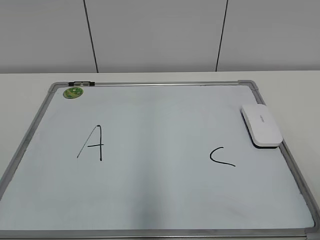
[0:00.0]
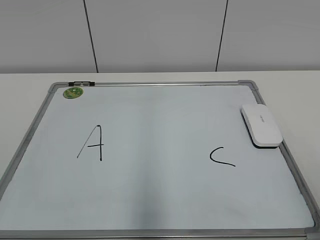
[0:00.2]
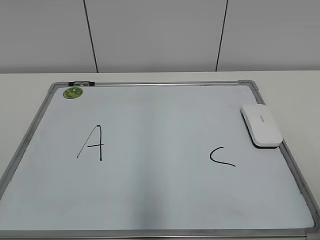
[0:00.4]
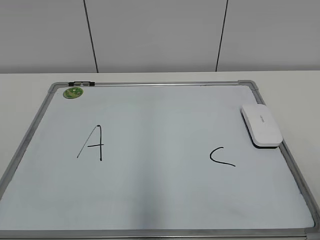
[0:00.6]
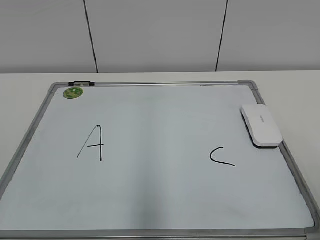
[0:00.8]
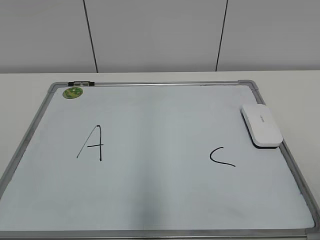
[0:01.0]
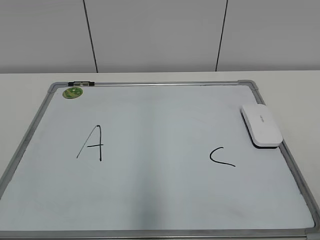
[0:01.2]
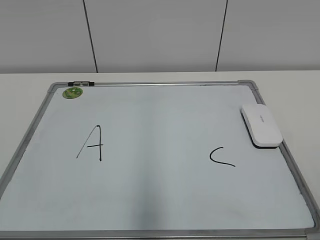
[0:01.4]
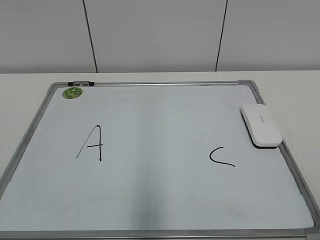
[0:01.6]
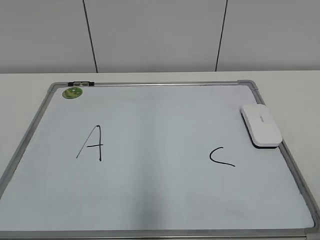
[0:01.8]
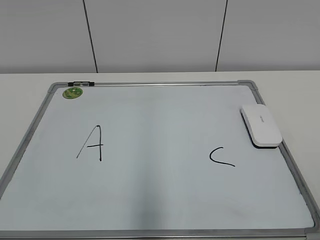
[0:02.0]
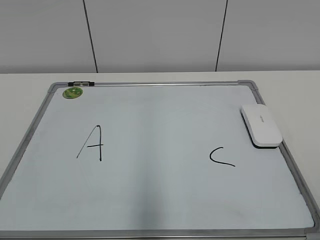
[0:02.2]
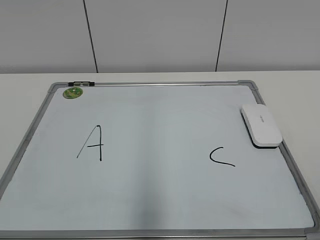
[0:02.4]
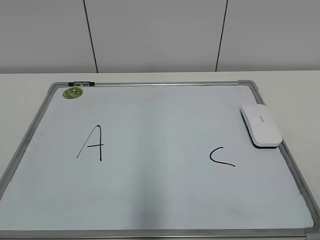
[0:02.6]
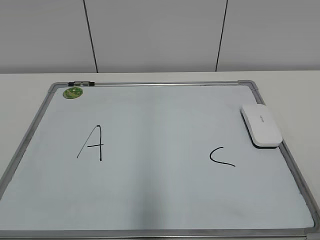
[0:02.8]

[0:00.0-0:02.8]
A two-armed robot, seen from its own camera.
Task of the whole recording: pick up the eraser on the blackboard and erase the letter "B".
0:01.4 to 0:02.8: Neither gripper changes place.

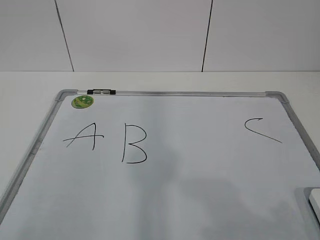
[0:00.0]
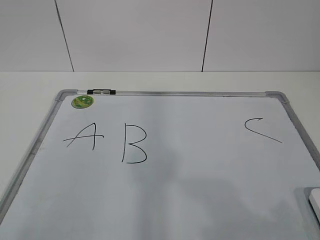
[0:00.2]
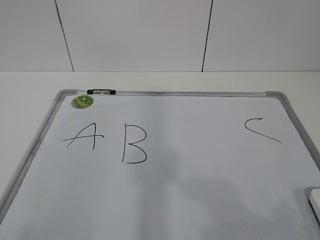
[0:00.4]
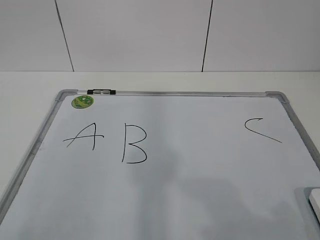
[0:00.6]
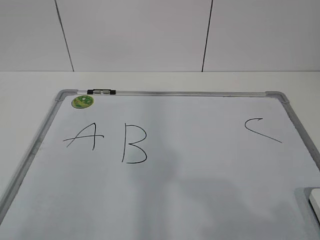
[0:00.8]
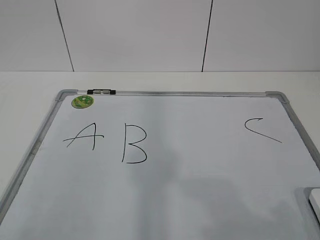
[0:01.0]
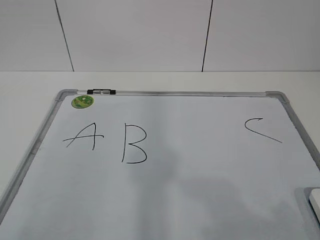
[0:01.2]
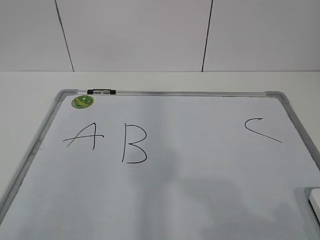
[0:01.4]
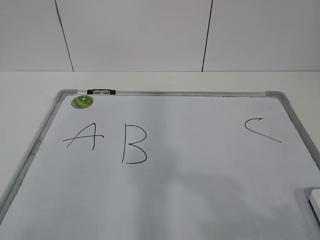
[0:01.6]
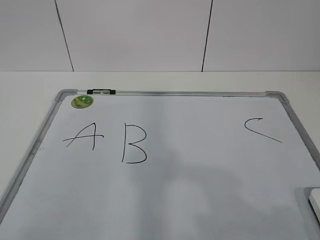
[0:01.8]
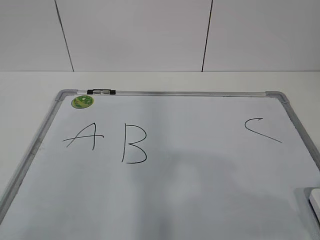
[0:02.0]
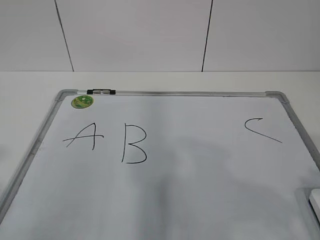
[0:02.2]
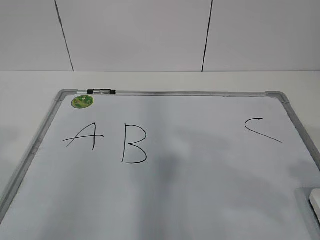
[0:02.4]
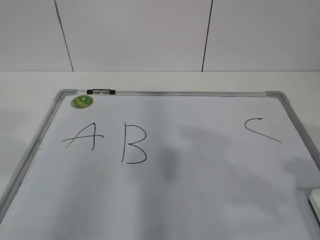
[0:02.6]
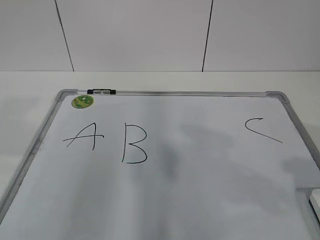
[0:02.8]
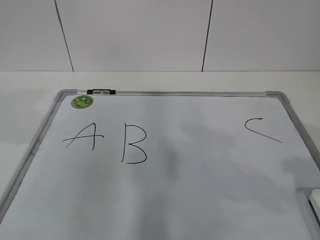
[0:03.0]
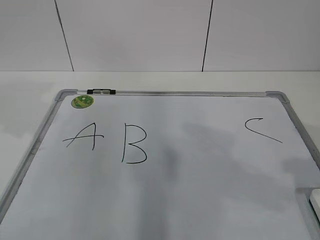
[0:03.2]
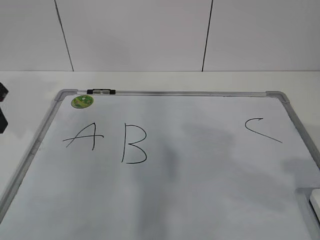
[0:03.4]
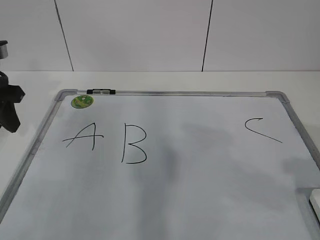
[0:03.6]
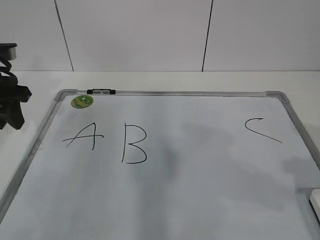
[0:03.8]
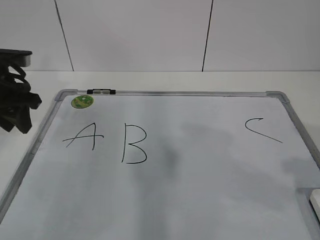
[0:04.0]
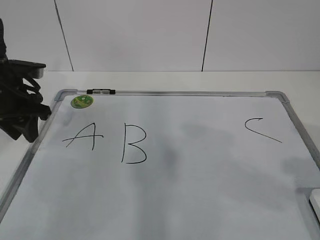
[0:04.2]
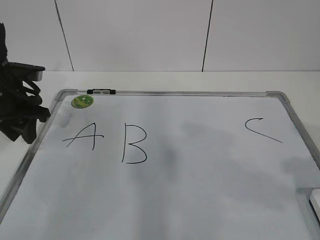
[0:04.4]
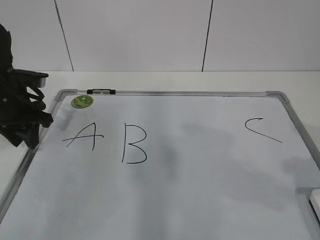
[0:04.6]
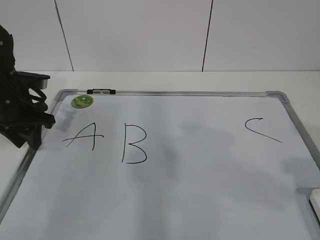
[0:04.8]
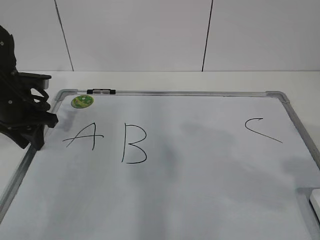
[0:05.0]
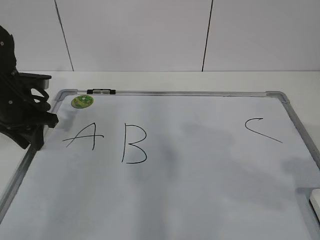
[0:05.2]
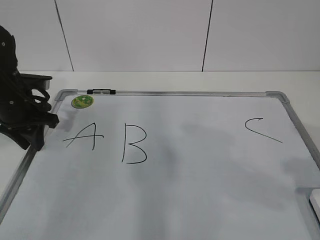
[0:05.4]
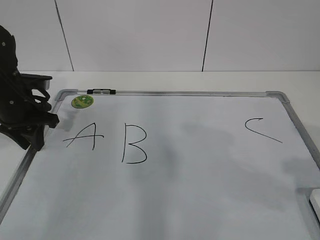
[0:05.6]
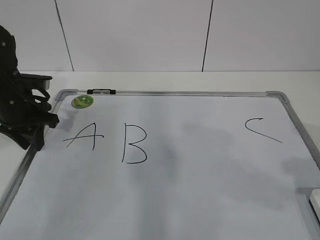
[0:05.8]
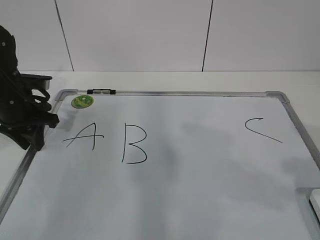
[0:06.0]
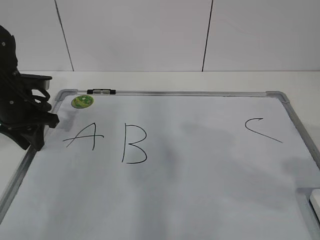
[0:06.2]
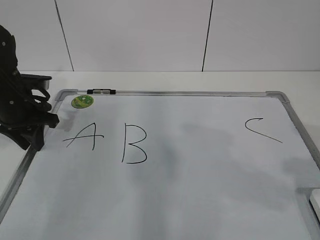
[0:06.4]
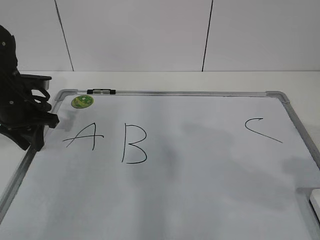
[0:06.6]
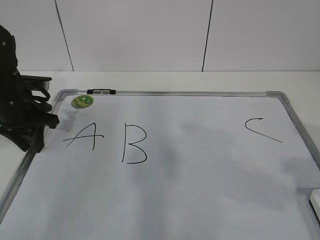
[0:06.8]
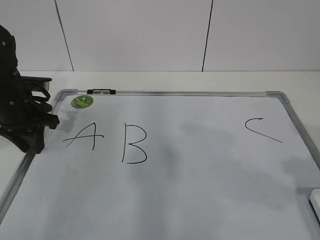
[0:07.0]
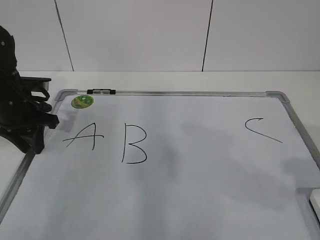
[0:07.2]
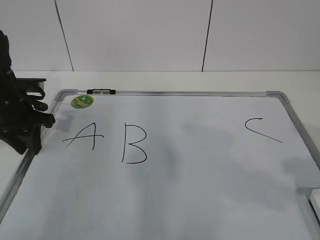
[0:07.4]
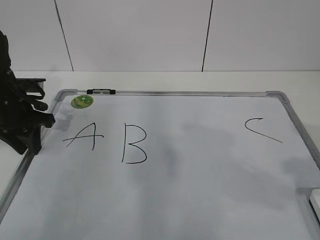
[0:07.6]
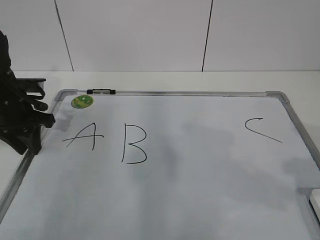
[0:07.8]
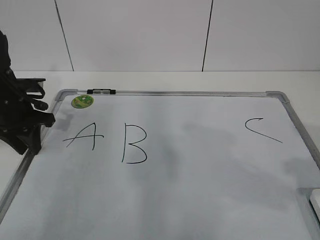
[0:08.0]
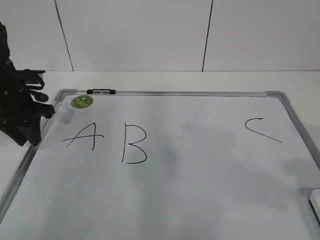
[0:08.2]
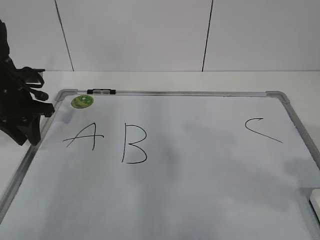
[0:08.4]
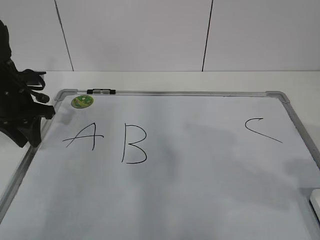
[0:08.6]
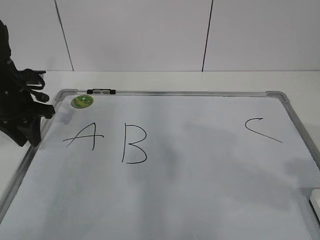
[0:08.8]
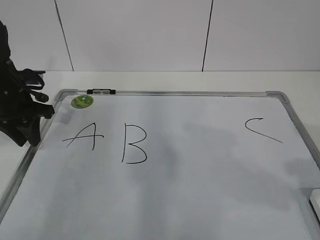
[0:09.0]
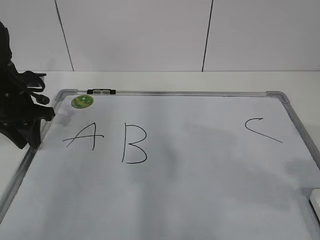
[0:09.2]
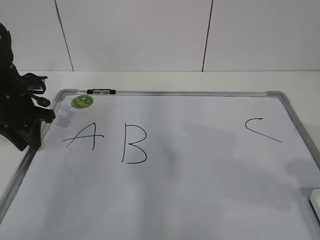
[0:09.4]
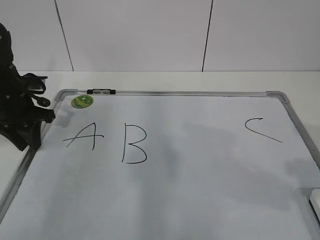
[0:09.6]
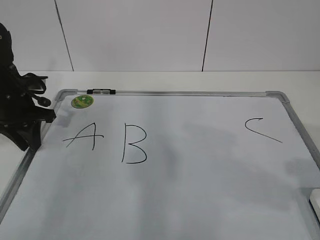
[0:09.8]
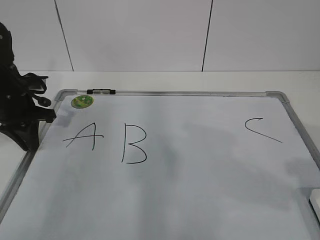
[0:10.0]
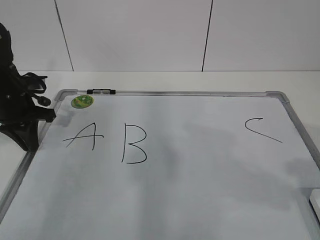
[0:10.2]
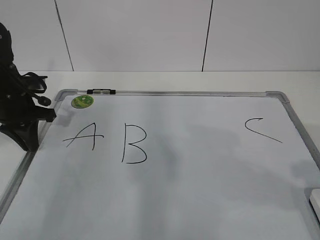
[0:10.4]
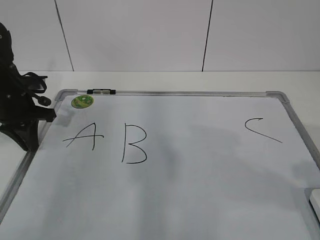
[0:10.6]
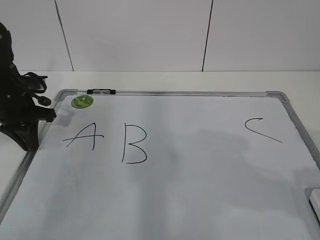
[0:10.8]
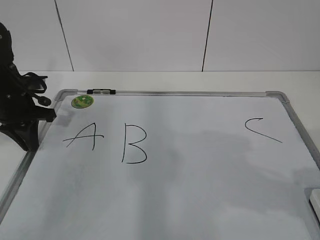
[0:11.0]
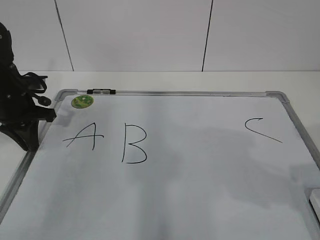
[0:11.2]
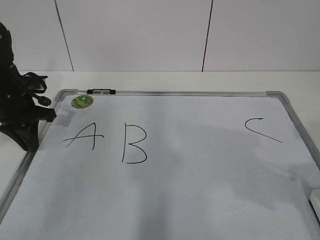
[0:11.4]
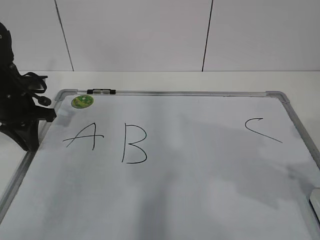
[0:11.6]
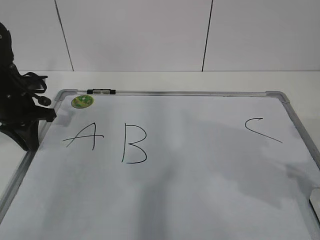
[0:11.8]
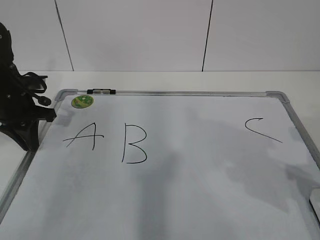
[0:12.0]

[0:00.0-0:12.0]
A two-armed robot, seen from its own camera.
Task of the whole recording: pick up the eraser on the blackboard and erase the letter "B".
Step, 0:00.0 to 0:08.2: Hold the drawing board steady with your left hand.
Step, 0:08.6 to 0:11.6: Grab the eraser with your right hand.
0:01.6 to 0:03.0: The left gripper goes some 20 cm forward.
0:03.0 to 0:04.4: The left gripper shifts roughly 20 cm forward and downward.
0:04.4 to 0:09.0: The grippers stay close to where they were, moving slightly.
0:09.0 to 0:10.4: The left gripper closes.

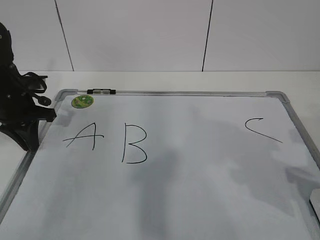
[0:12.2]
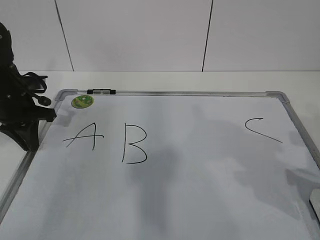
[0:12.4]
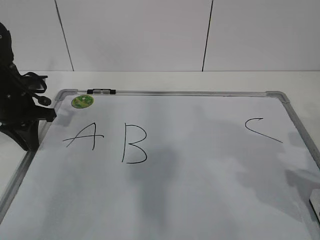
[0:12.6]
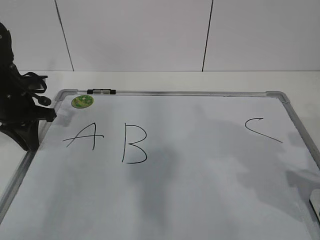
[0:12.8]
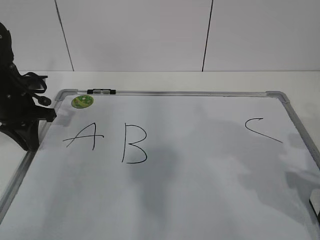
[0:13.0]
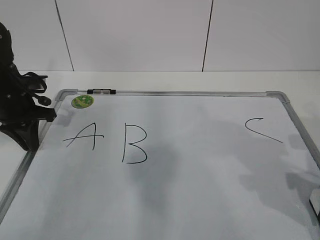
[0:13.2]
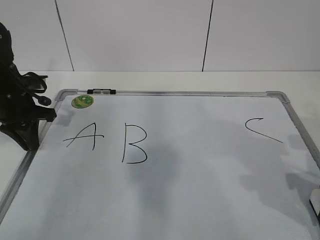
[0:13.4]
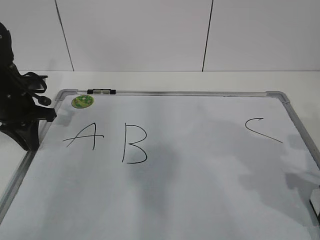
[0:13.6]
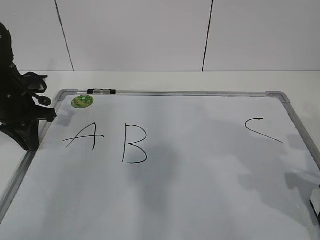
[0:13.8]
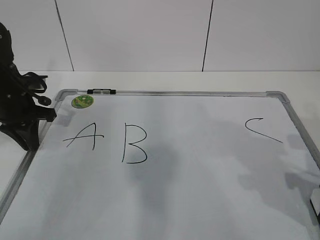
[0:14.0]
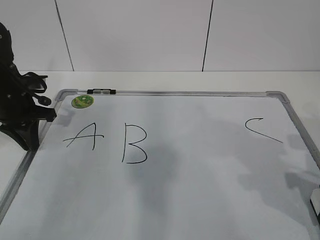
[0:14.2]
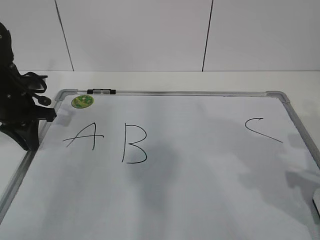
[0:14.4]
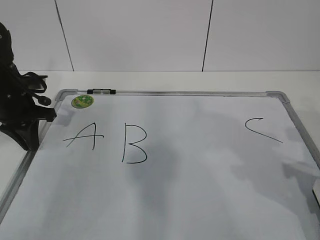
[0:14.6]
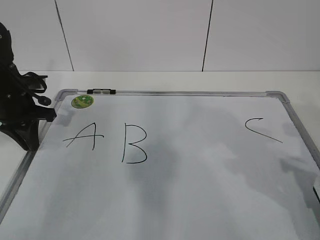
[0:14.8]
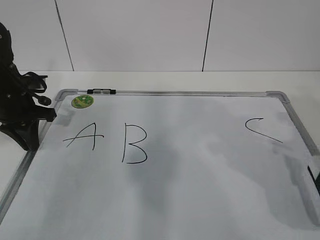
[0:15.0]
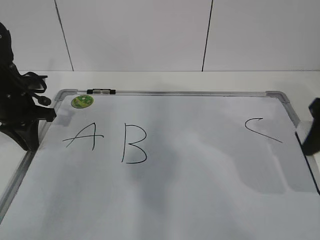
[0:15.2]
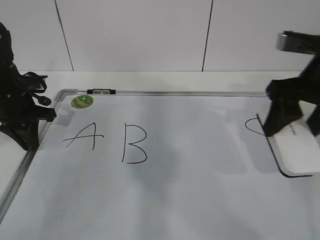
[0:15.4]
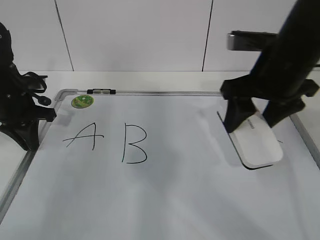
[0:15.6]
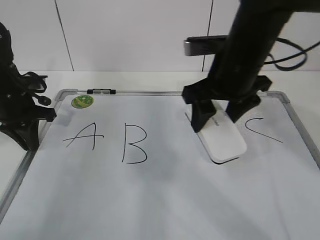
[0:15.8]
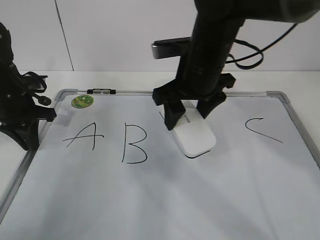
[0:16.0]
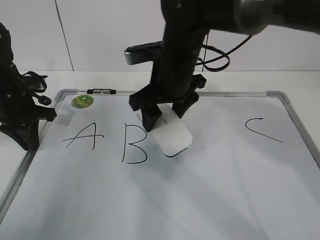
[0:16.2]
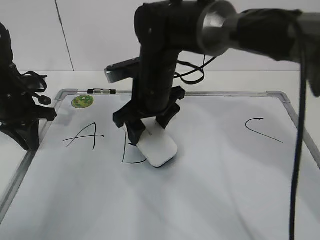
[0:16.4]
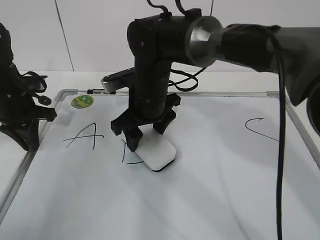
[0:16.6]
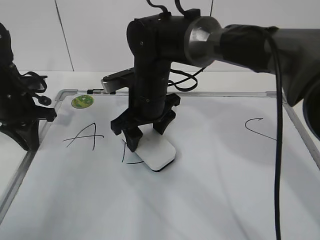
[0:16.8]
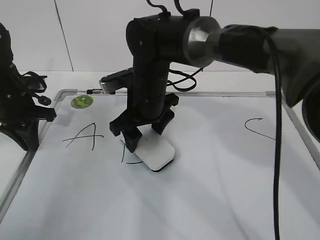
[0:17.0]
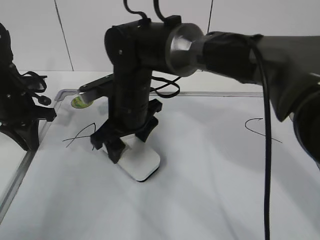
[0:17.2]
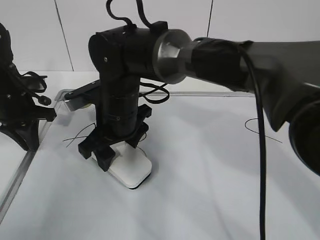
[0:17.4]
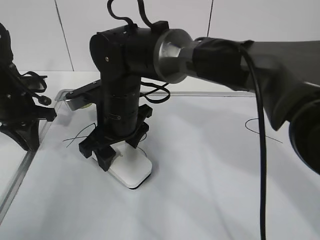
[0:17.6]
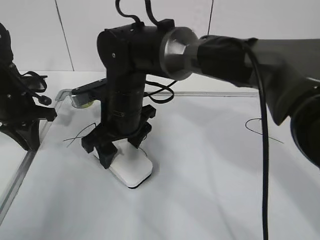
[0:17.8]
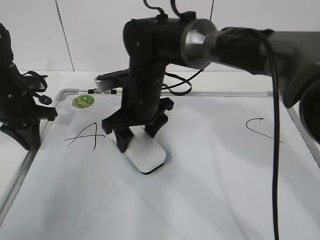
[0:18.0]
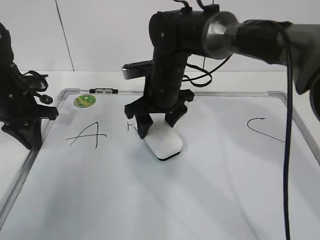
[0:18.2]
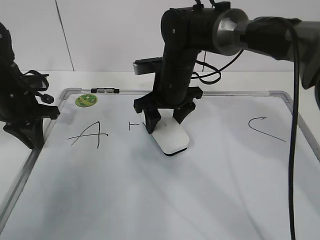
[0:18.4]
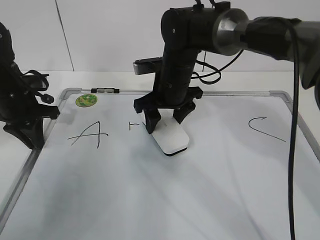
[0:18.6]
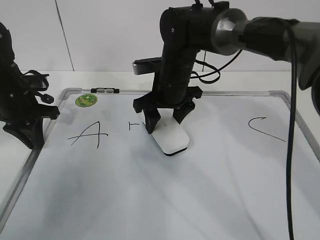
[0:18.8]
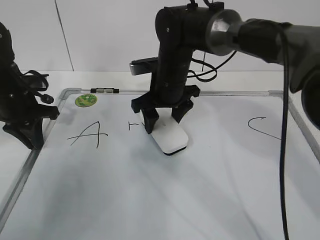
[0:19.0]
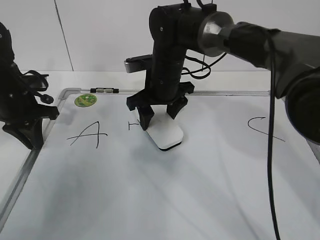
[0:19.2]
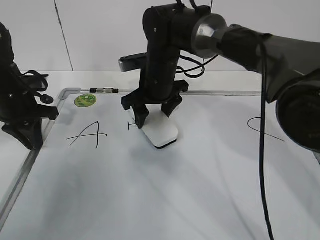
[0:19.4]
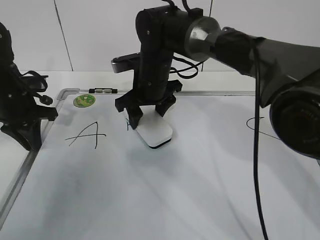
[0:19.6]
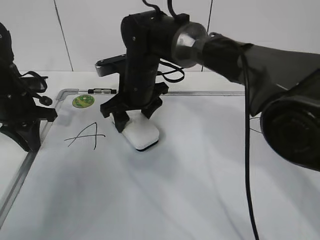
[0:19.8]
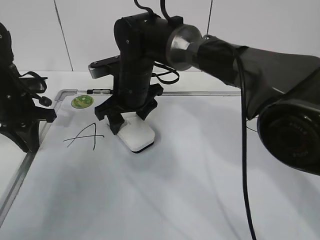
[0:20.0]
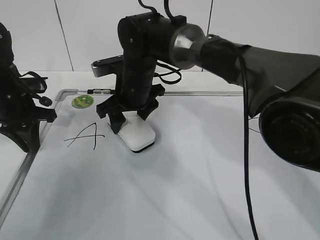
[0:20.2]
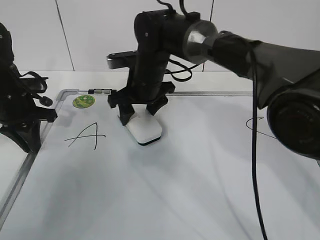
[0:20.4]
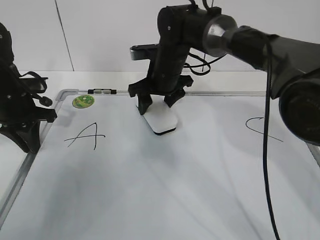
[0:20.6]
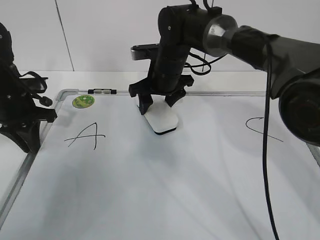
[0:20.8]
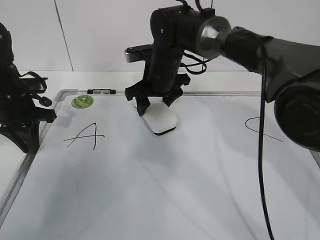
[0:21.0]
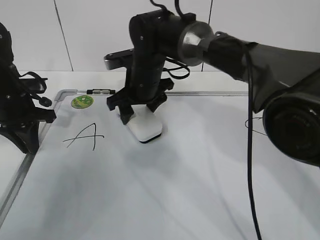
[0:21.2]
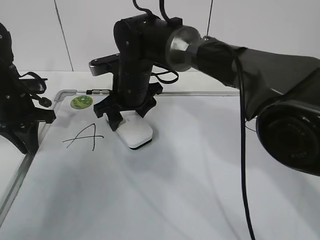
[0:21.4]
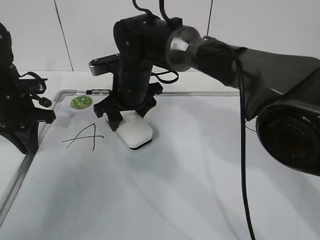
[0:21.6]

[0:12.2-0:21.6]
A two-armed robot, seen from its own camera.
Task of the whole recording: pick up the eraser on the blackboard and erase the letter "B".
Step, 0:12.2 to 0:18.4: Erase the letter B with your right hand.
0:13.8 to 0:15.4: The right gripper is displaced upward, forward and to the left by about 15 cm.
0:15.4 to 0:17.0: The right gripper moves to the left and downward, some 25 cm.
0:17.0 to 0:18.4: The right gripper is displaced to the right by about 5 cm.
0:18.4 to 0:20.0: The right gripper is displaced to the left by roughly 10 cm.
